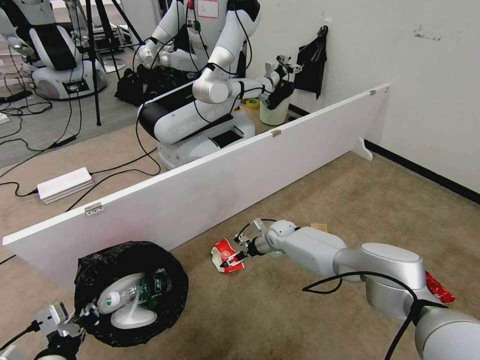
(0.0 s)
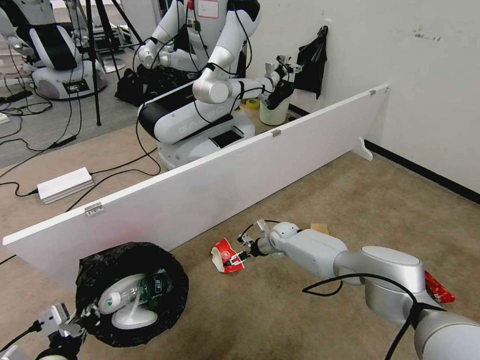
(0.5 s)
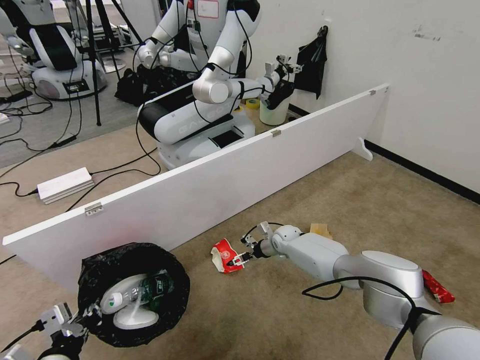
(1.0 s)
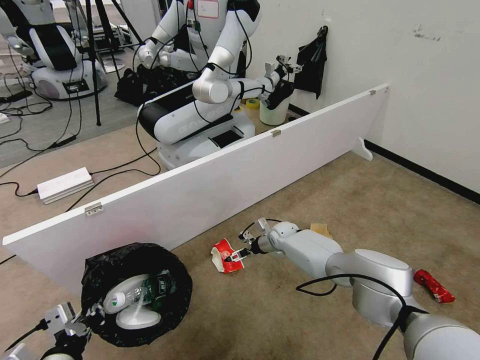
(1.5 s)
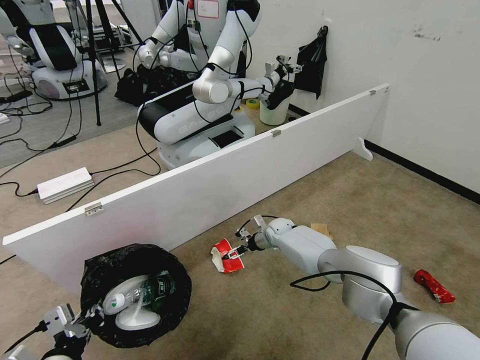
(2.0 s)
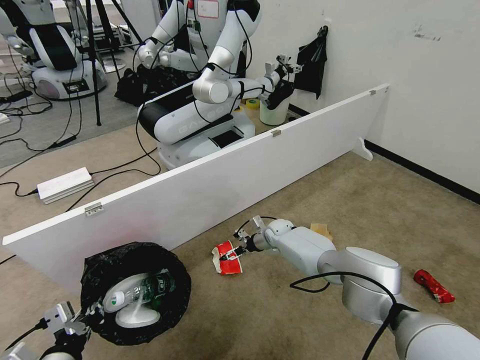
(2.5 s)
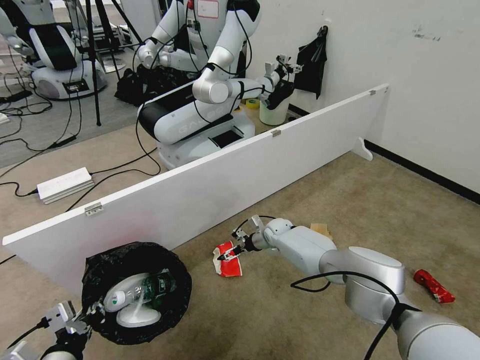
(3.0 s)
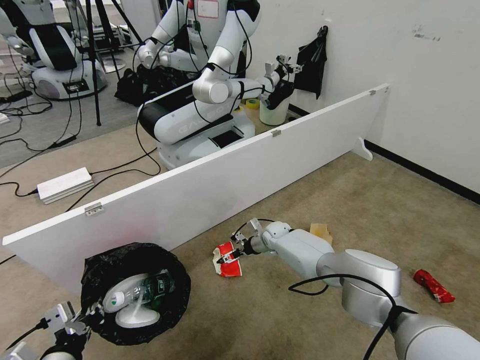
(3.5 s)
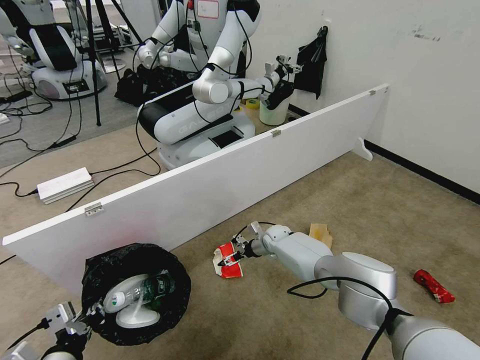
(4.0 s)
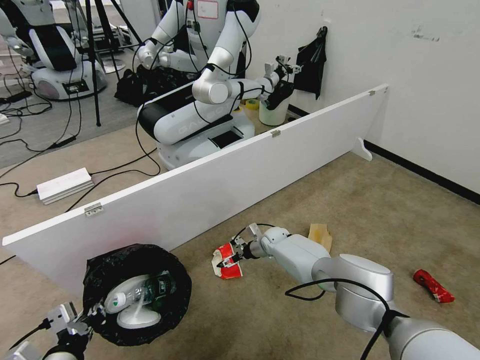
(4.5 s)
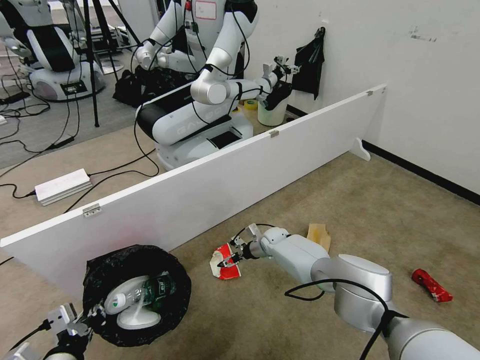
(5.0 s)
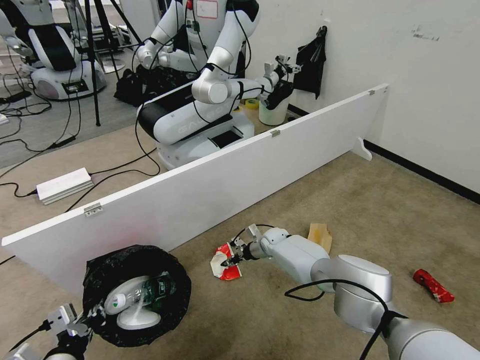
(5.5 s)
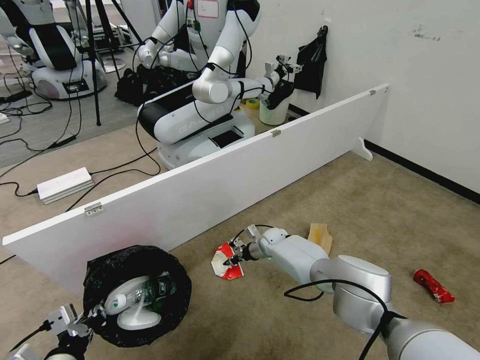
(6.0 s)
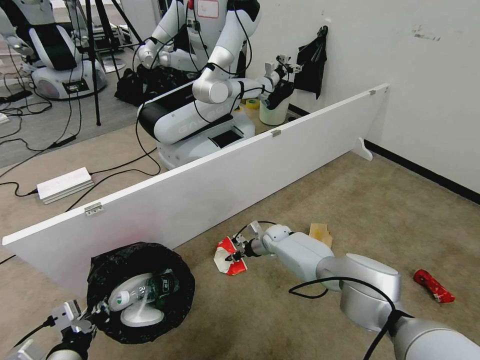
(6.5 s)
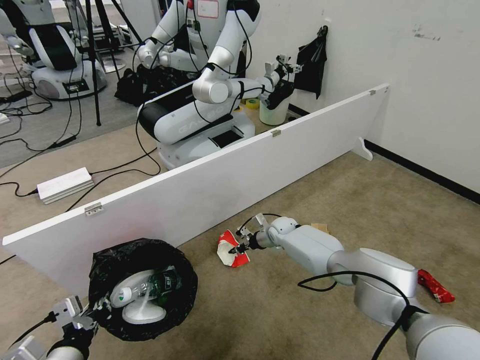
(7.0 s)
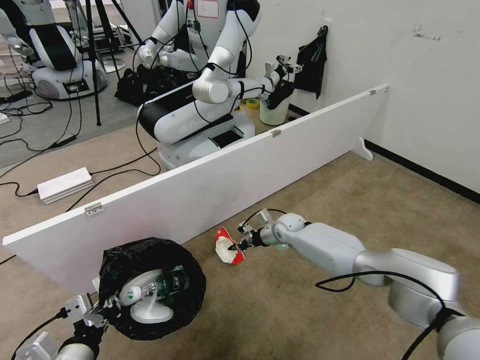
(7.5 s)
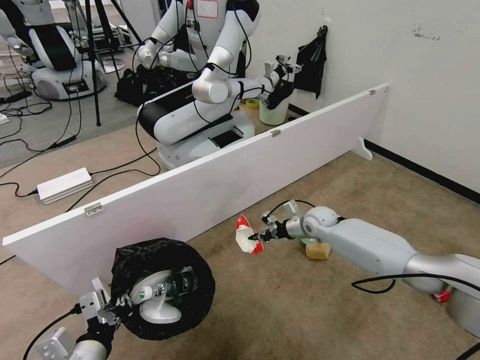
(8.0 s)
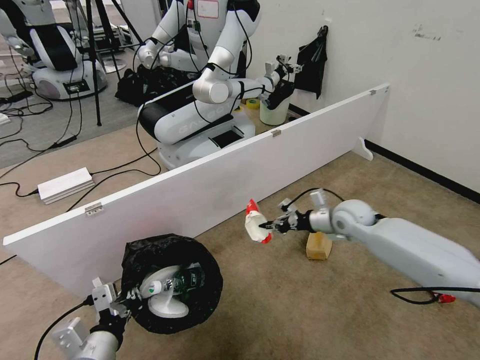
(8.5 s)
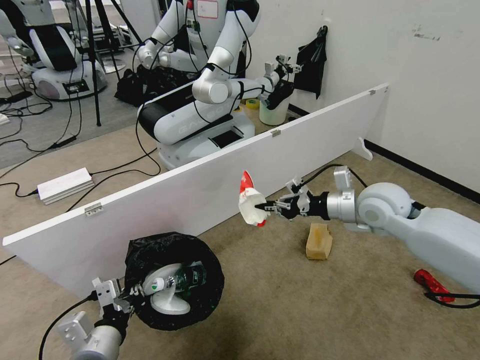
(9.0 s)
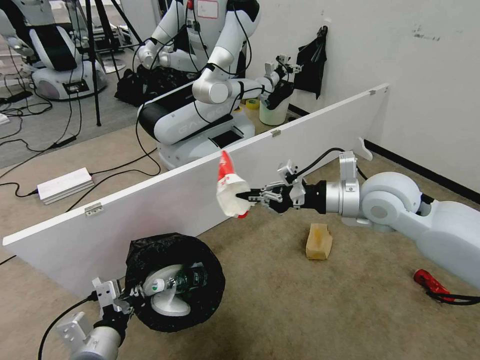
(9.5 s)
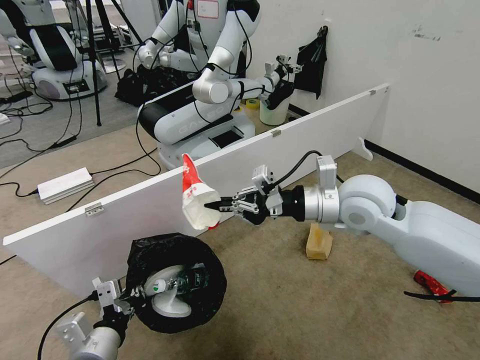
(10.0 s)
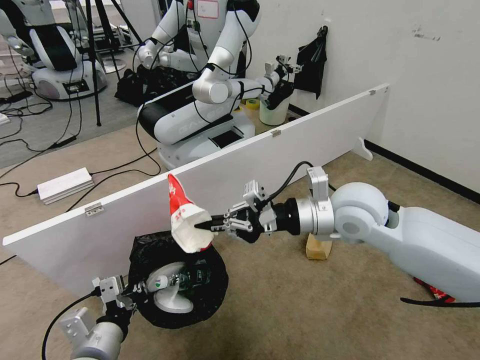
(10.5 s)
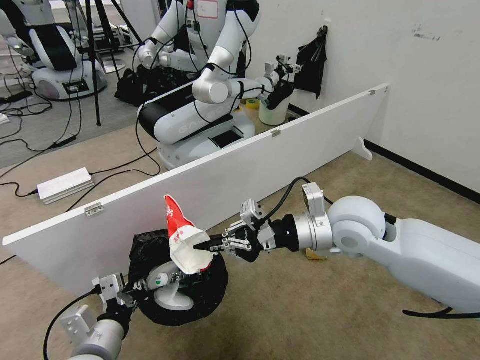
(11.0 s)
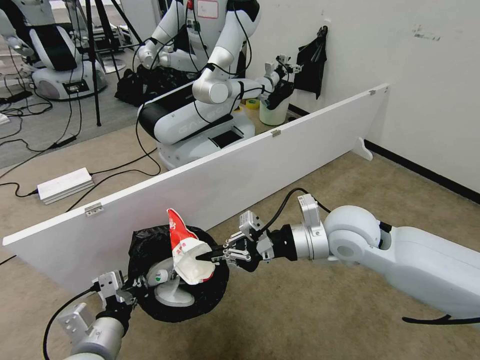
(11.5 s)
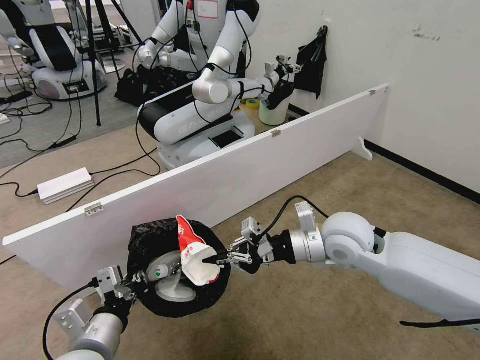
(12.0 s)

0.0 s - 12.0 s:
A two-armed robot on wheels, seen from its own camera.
Task of the whole recording: Pick up the trash bin, then pick up the garbage from the floor and place it into the trash bin.
0.0 s - 4.0 s: The grippers make only small movements.
4.0 s - 6.0 s: The right gripper closes.
6.0 s - 8.0 s: The left gripper shifts by roughly 5 cm. Meanwhile the right gripper travels upward and to the right by about 20 cm.
8.0 s - 10.0 s: The right gripper goes about 30 cm upward and backward.
10.0 s - 12.0 s: The right gripper travels downward by some 10 cm.

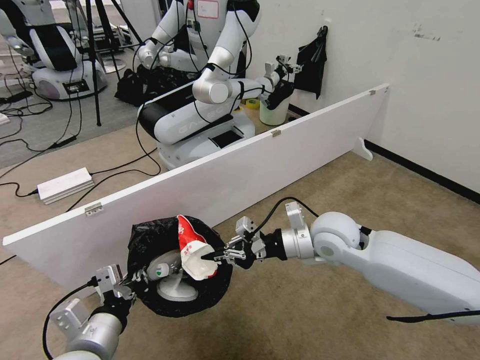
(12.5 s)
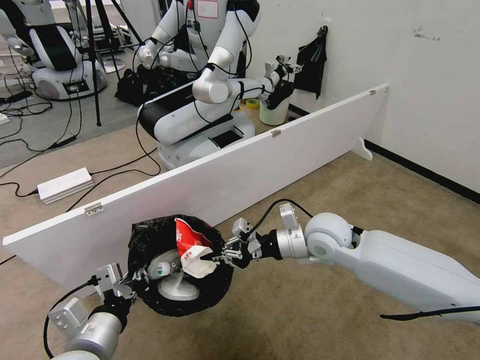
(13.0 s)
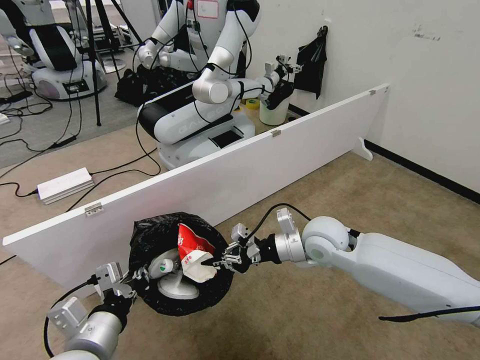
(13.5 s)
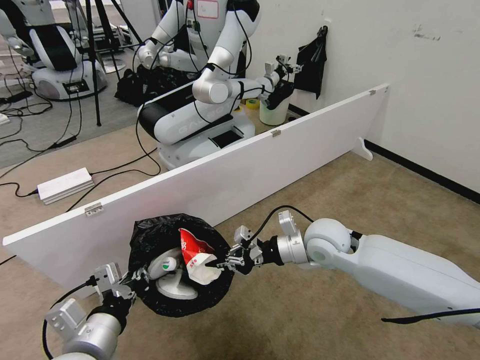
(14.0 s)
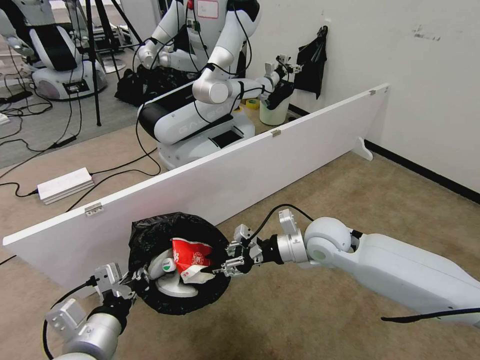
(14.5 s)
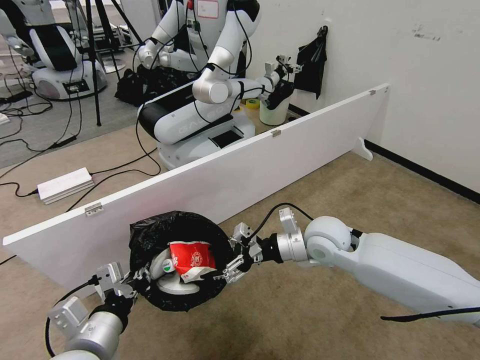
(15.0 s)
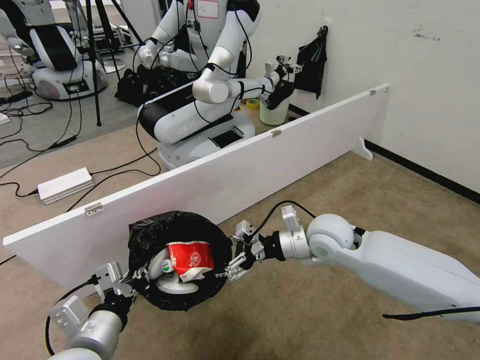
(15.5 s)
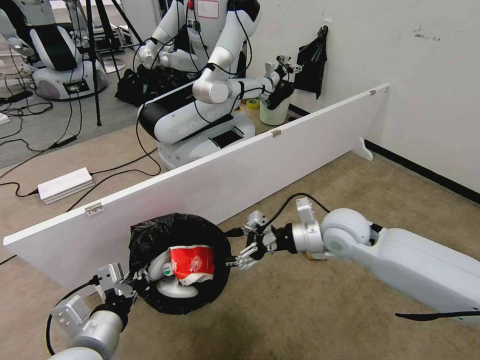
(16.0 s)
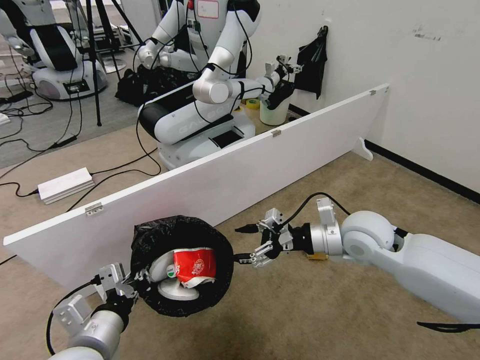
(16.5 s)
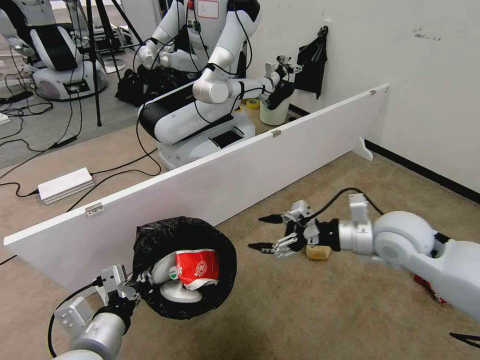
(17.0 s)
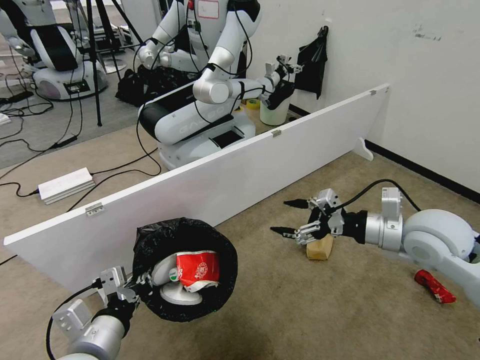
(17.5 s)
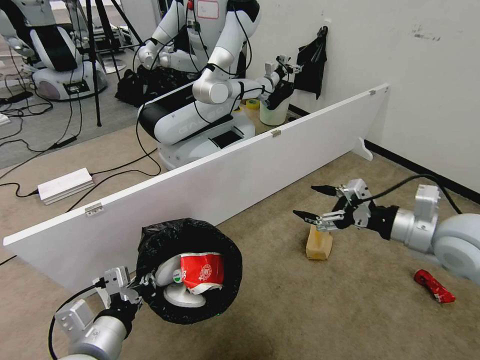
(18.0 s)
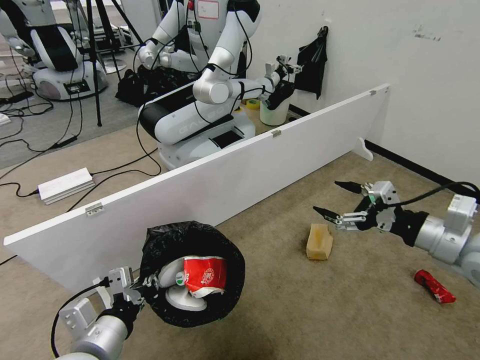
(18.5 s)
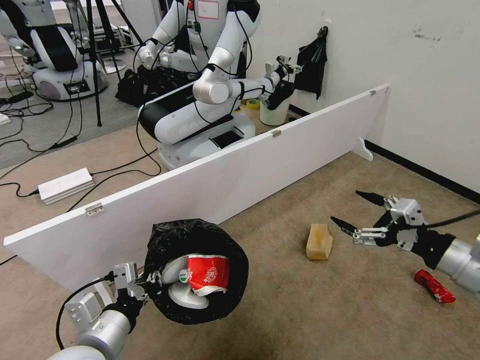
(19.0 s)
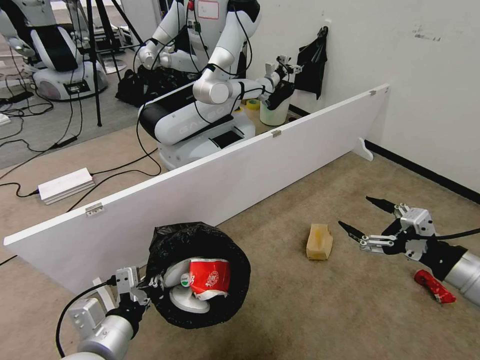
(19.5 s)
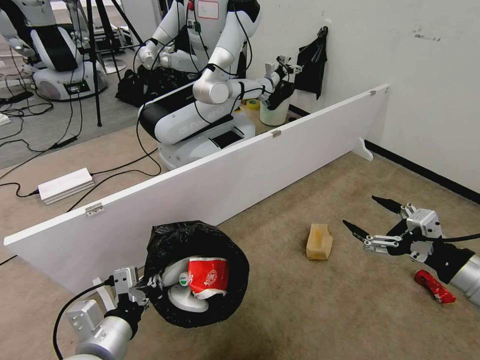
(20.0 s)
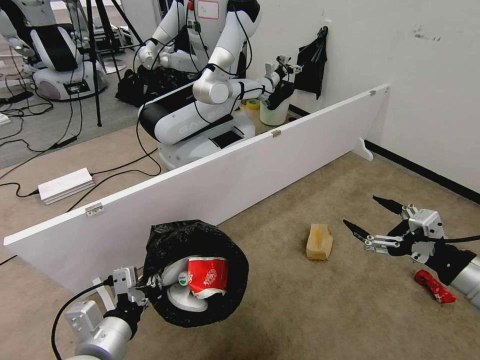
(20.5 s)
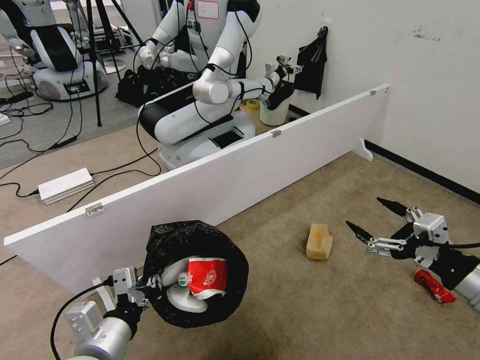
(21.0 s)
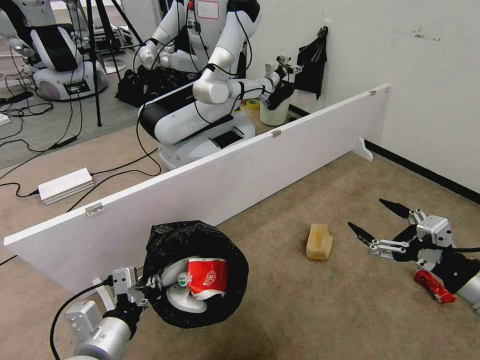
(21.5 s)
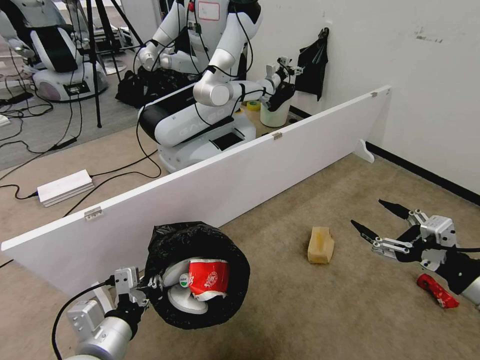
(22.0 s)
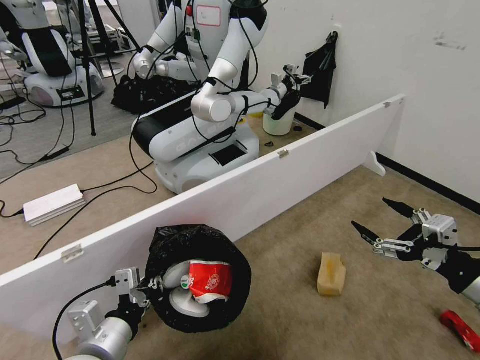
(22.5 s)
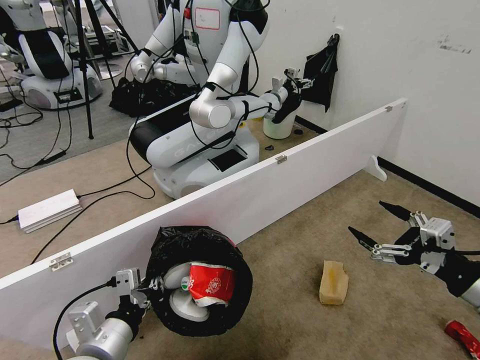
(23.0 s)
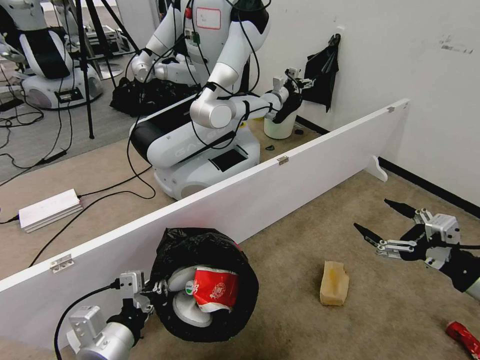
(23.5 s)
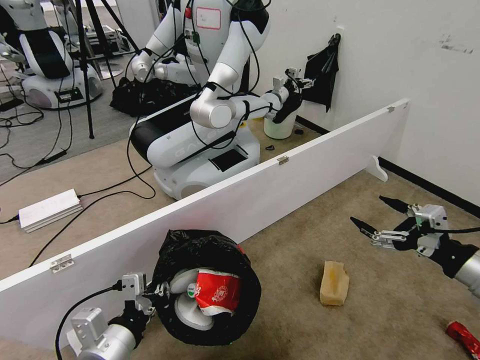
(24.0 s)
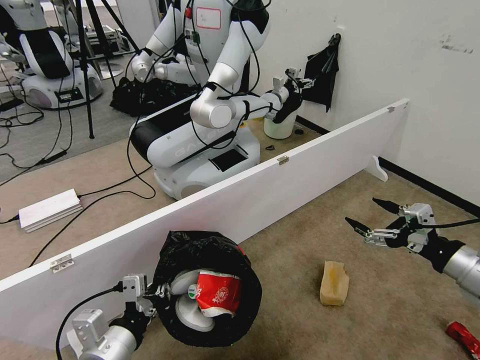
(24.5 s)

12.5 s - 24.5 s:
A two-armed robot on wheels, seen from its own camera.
Task of the whole recording: Pick up the trash bin, then pick up the garbage from the floor and place it into the trash bin.
12.5 s - 14.5 s: The right gripper opens up.
14.5 s - 16.5 s: The right gripper moves to the right, some 5 cm, and opens its fingers.
16.5 s - 18.5 s: The right gripper goes approximately 20 cm to the right, backward and upward.
18.5 s - 20.5 s: The right gripper goes some 10 cm backward.
22.5 s - 24.5 s: The right gripper is displaced forward by some 5 cm.

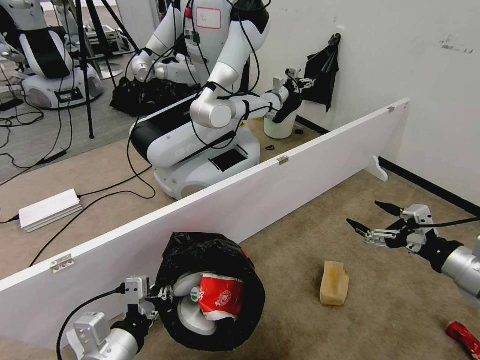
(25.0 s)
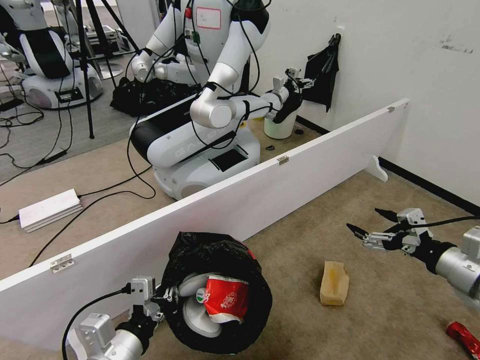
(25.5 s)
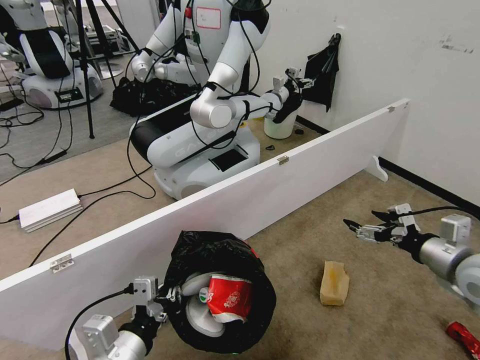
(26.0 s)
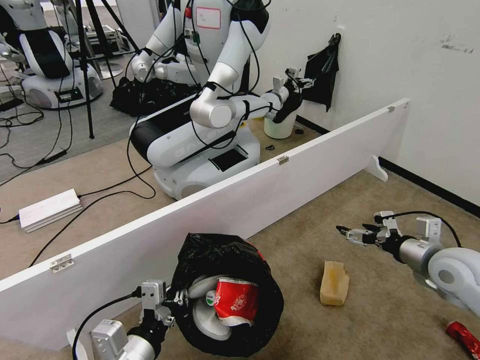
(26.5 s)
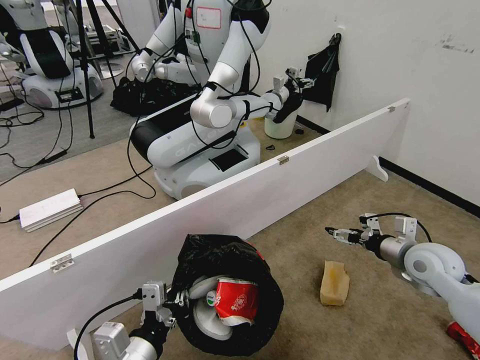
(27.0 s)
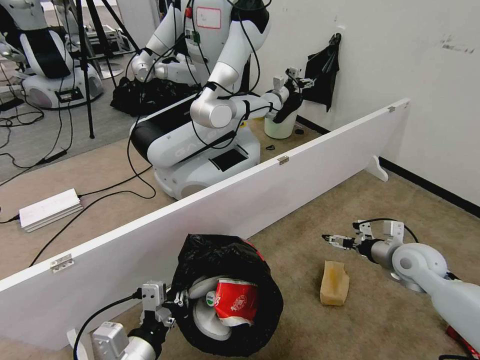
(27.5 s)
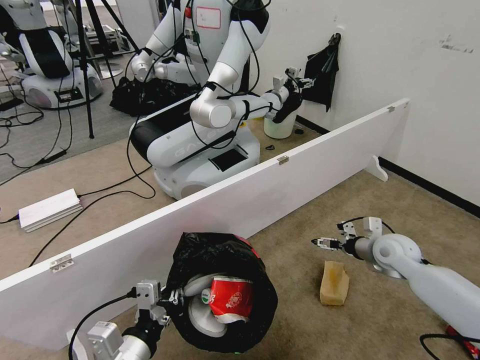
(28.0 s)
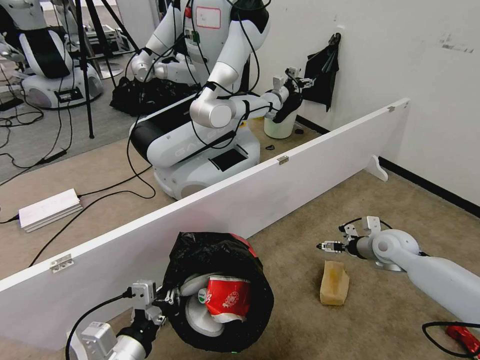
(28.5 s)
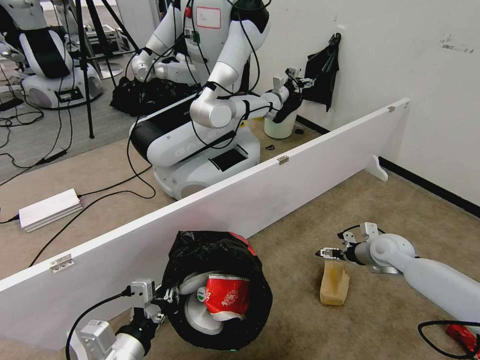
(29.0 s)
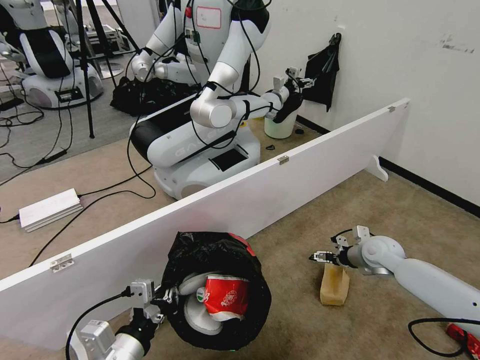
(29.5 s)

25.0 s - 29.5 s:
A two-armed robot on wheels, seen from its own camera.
Task of the whole recording: Pick up the trash bin, then pick up the garbage from the floor and place it into the trash bin.
25.0 s - 27.0 s: The right gripper shifts some 15 cm forward and downward.
27.0 s - 29.5 s: The right gripper shifts roughly 15 cm downward and forward.
